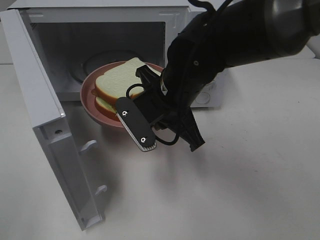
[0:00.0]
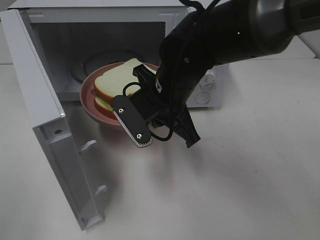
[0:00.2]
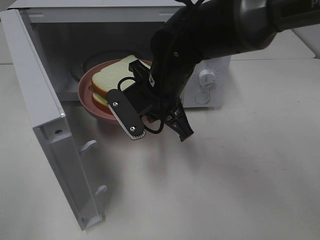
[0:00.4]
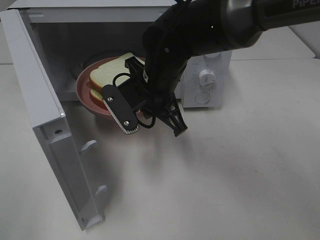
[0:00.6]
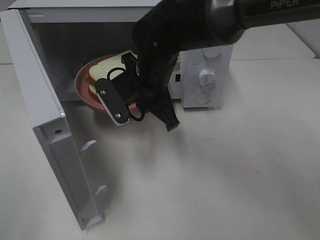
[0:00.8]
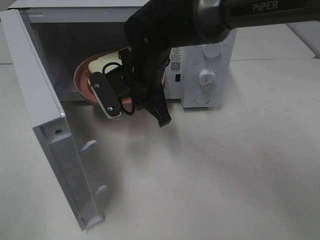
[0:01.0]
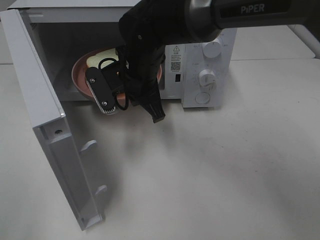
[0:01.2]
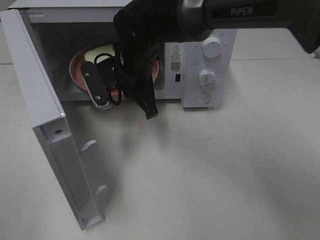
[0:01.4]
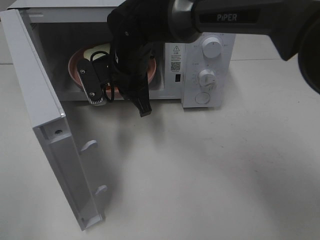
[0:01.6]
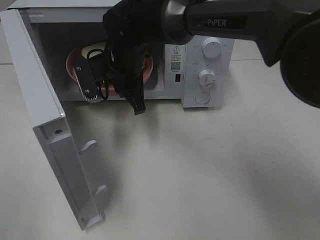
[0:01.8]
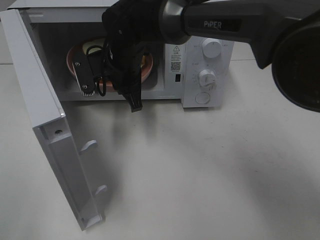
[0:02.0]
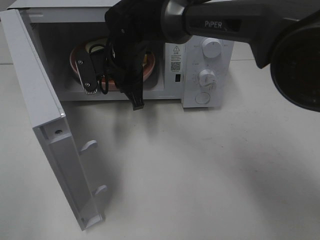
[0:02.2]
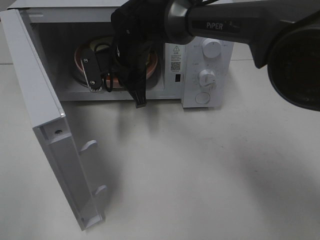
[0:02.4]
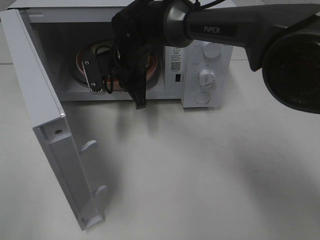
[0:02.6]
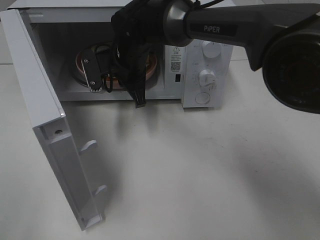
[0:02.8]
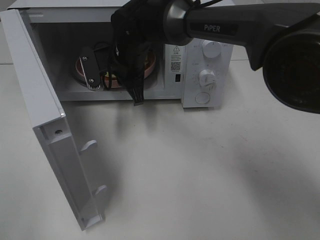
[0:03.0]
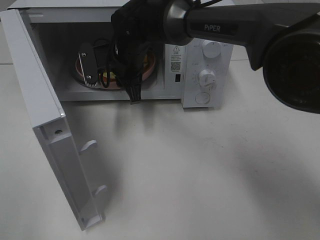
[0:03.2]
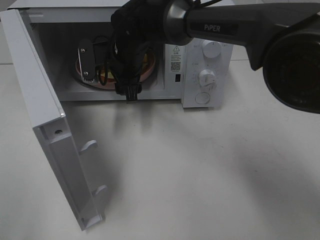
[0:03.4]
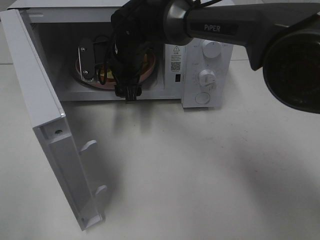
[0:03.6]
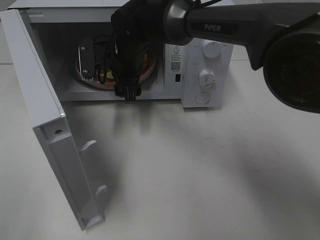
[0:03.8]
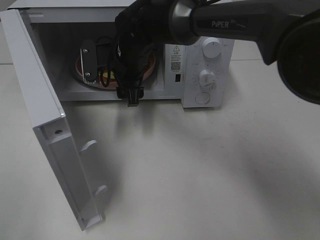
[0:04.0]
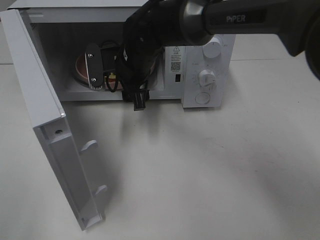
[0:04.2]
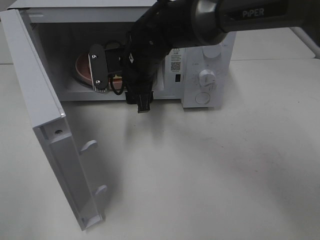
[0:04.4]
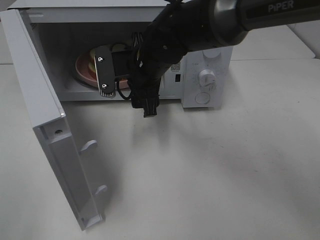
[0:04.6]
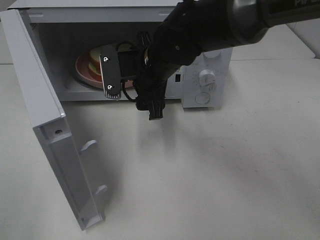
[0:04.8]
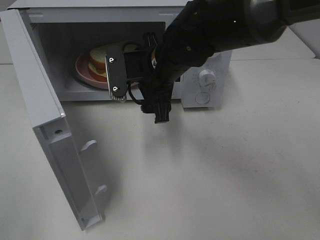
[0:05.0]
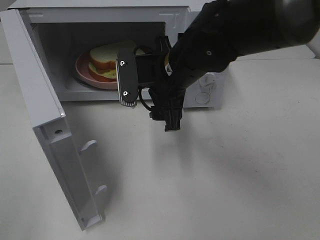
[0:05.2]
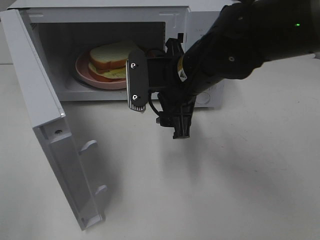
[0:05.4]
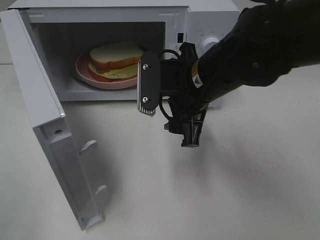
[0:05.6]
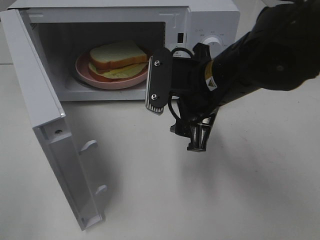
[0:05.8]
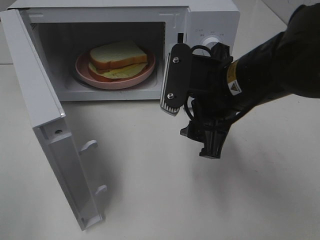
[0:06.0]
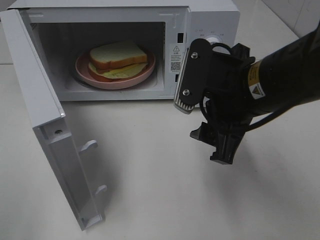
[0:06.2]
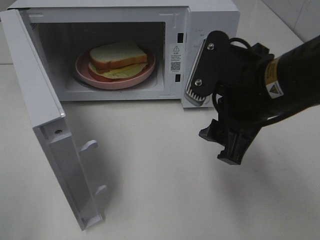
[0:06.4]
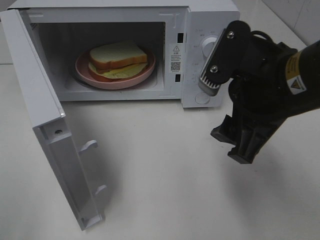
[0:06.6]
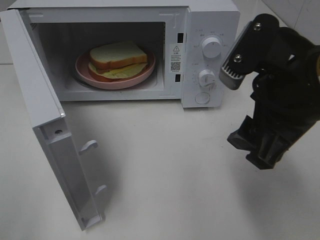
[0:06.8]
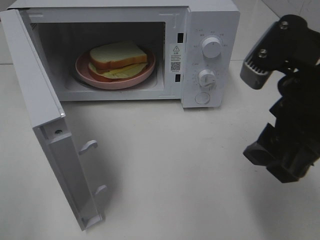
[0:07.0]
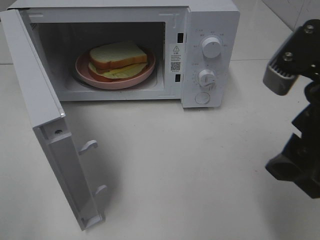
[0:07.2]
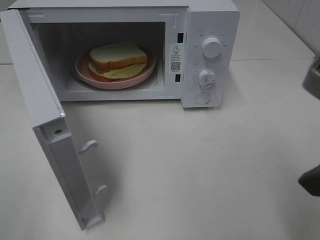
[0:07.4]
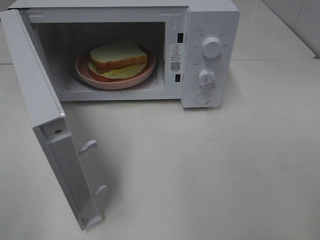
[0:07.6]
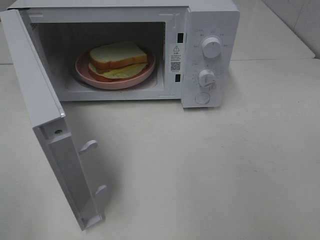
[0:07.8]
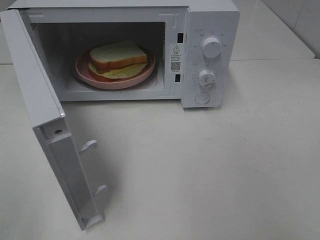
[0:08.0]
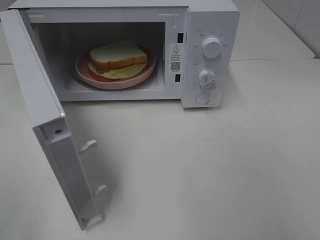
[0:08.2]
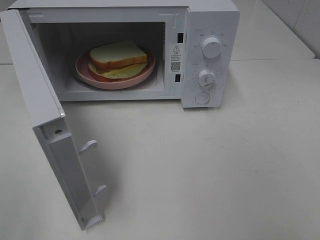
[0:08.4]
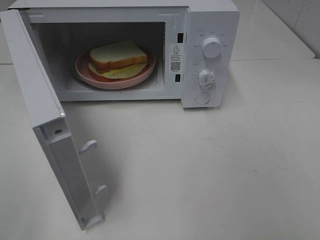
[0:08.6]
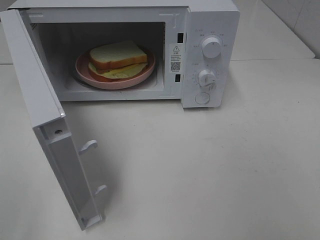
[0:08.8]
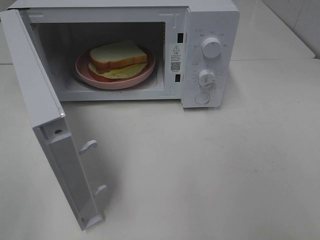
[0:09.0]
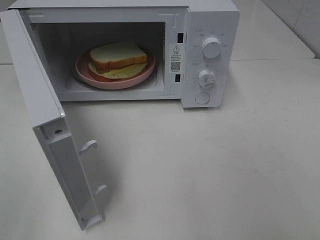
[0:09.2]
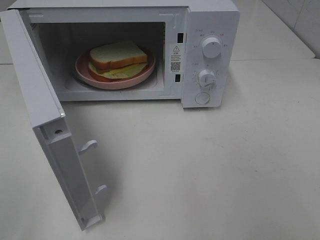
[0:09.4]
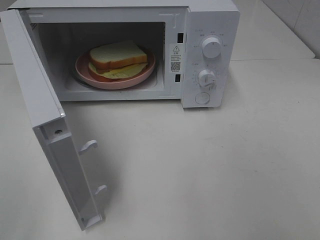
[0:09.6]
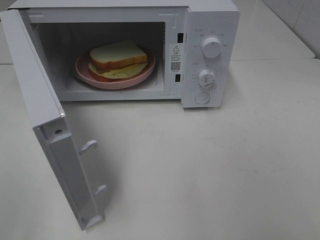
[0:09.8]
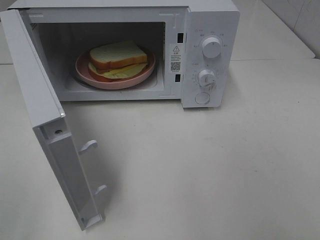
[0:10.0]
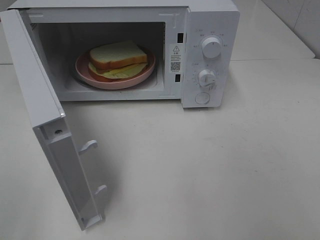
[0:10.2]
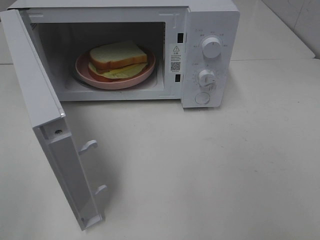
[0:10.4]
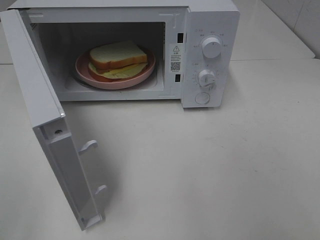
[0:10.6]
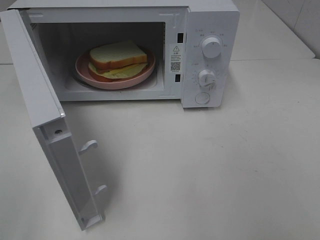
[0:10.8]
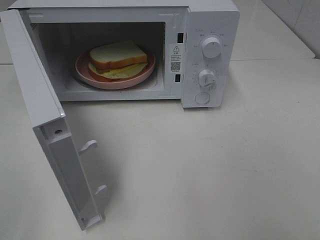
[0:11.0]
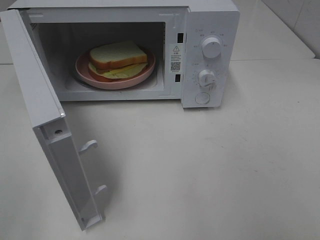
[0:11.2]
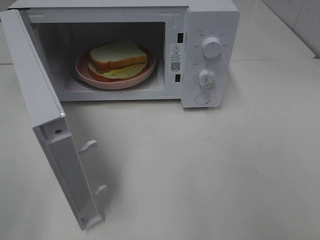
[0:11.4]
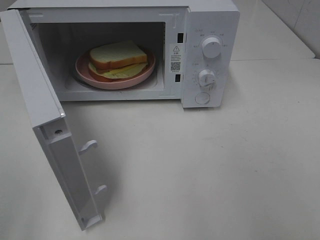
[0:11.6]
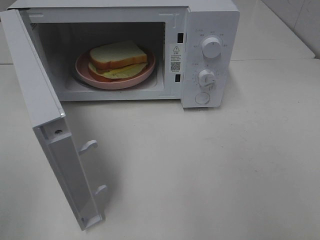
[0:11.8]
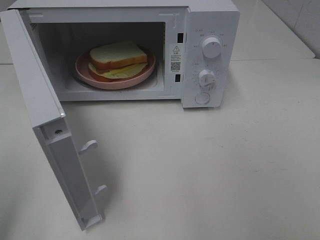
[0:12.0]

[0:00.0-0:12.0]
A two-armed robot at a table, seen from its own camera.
Task of the whole recording: Heat Sandwich.
Step, 0:00.0 to 0:03.8: Right hand: place the plate in the microwave.
0:00.0 to 0:01.6: The right gripper shifts about 10 cm forward and to the left.
0:01.6 to 0:03.0: The grippers make only small movements.
0:03.0 to 0:04.4: The right gripper opens up.
0:04.4 to 0:06.0: The right gripper travels backward and to the right by some 20 cm.
0:06.0 to 0:07.6: The right gripper is displaced backward, to the right and upward by roughly 20 cm.
0:09.0 to 0:10.4: Both grippers stay put.

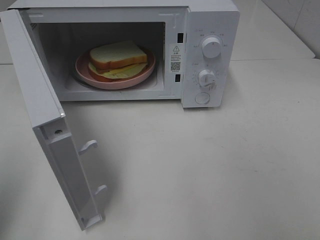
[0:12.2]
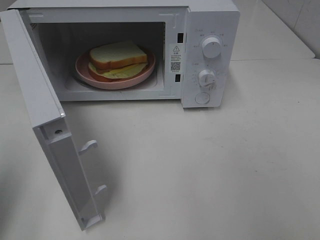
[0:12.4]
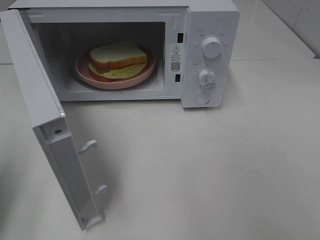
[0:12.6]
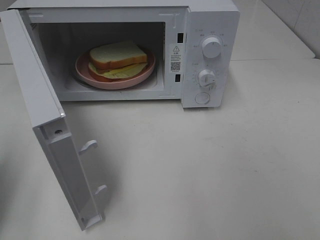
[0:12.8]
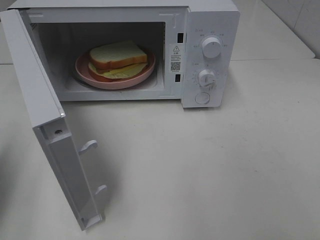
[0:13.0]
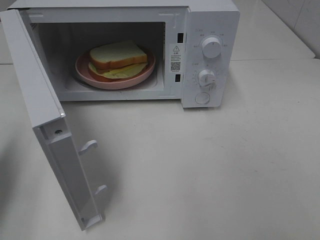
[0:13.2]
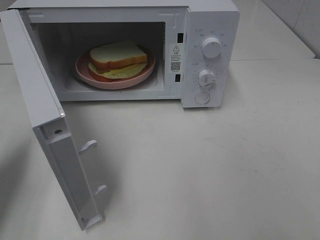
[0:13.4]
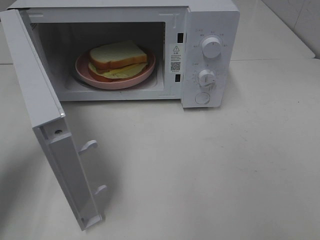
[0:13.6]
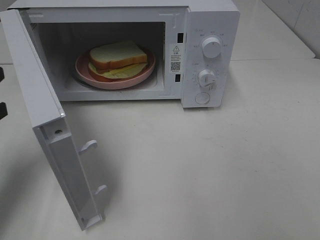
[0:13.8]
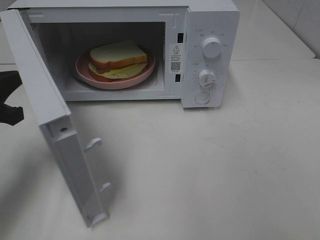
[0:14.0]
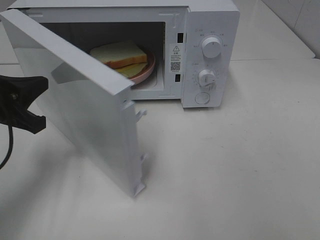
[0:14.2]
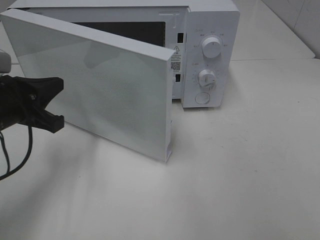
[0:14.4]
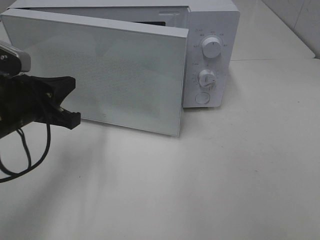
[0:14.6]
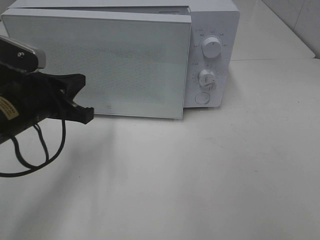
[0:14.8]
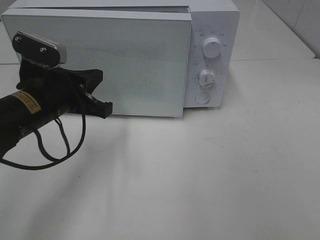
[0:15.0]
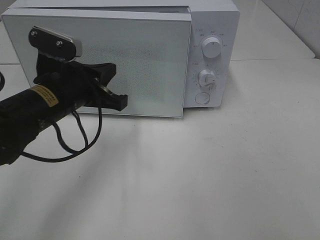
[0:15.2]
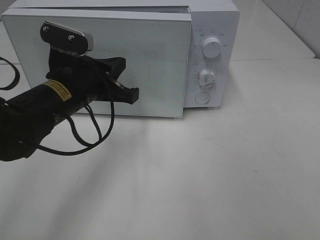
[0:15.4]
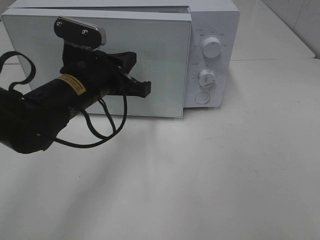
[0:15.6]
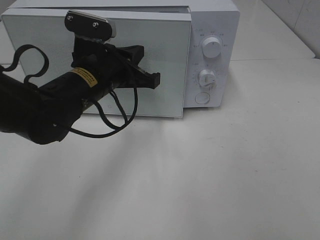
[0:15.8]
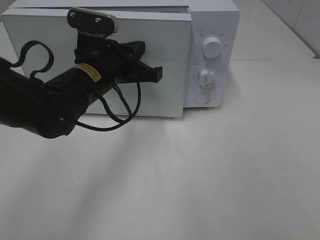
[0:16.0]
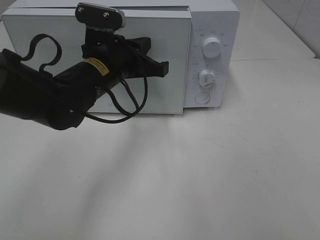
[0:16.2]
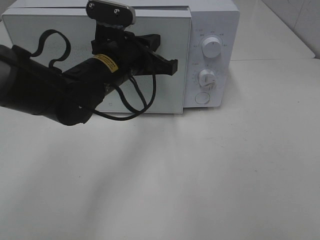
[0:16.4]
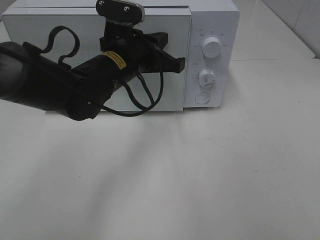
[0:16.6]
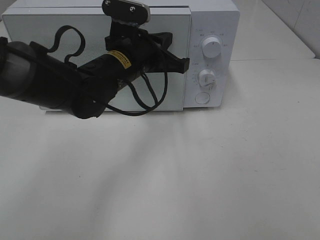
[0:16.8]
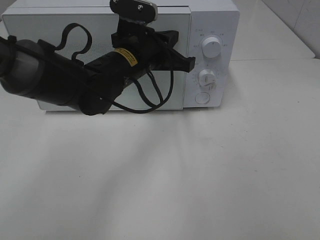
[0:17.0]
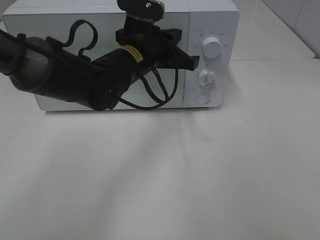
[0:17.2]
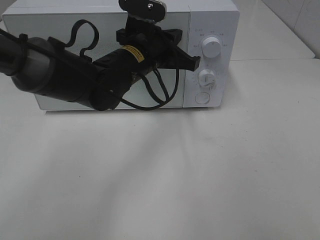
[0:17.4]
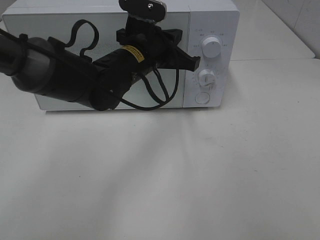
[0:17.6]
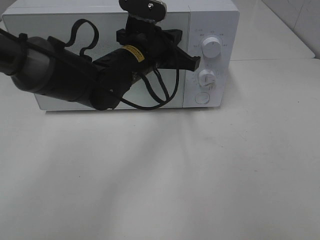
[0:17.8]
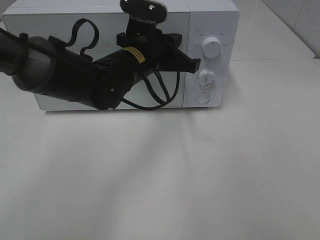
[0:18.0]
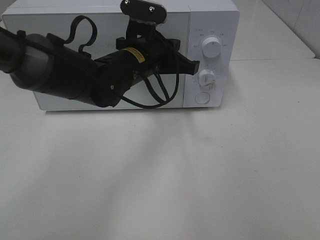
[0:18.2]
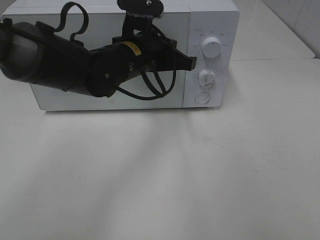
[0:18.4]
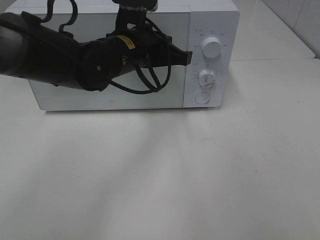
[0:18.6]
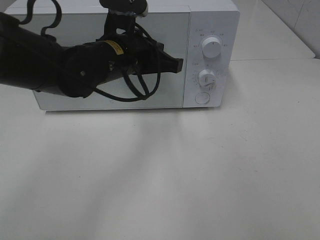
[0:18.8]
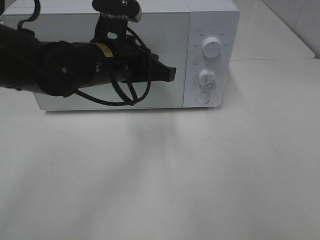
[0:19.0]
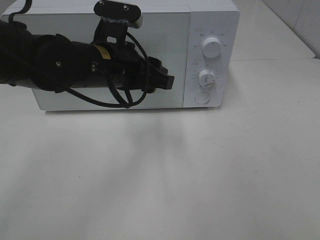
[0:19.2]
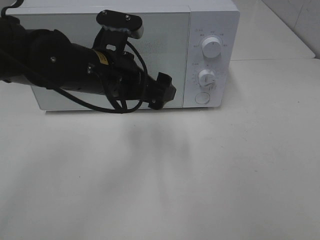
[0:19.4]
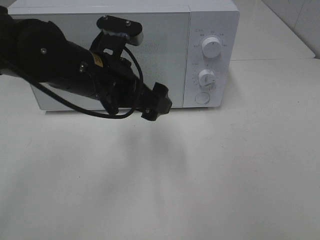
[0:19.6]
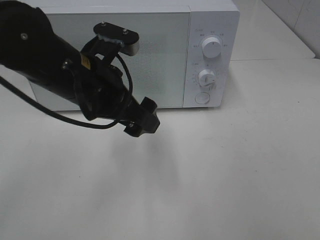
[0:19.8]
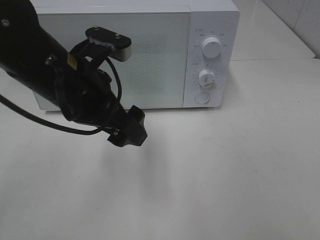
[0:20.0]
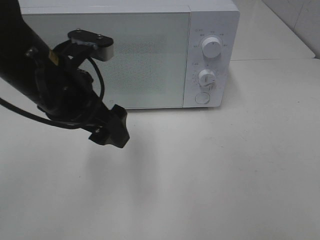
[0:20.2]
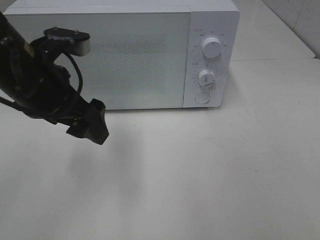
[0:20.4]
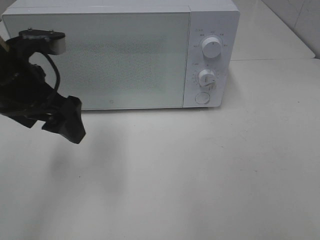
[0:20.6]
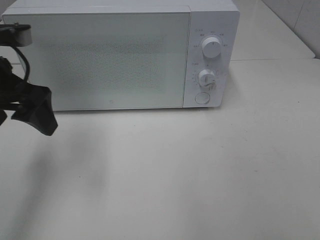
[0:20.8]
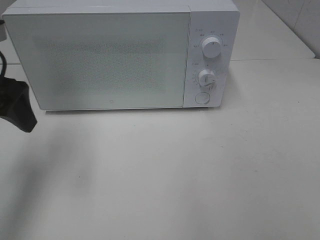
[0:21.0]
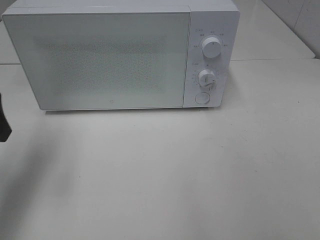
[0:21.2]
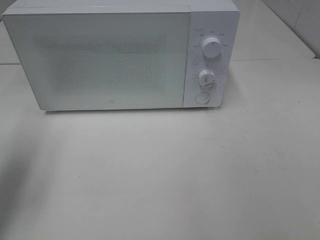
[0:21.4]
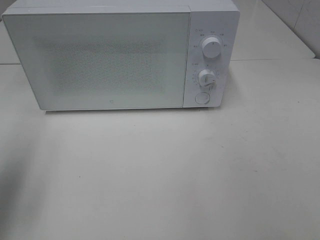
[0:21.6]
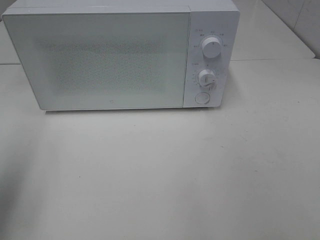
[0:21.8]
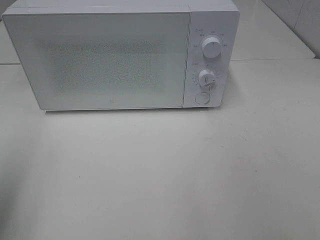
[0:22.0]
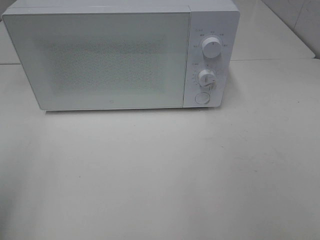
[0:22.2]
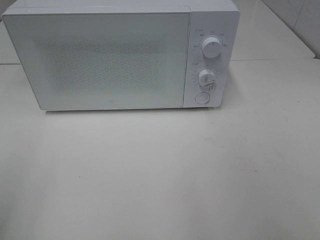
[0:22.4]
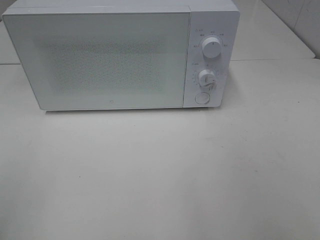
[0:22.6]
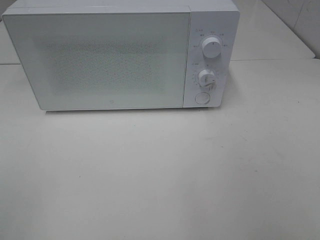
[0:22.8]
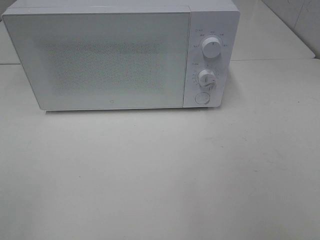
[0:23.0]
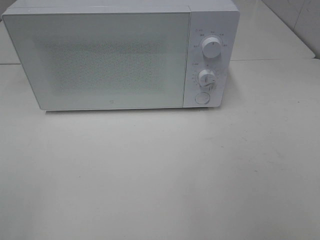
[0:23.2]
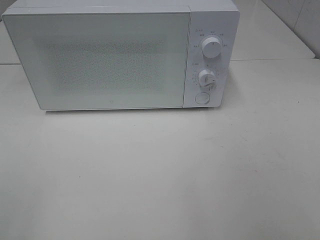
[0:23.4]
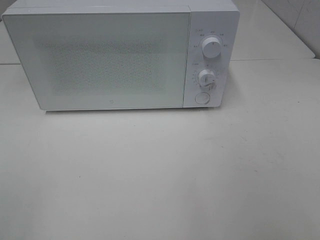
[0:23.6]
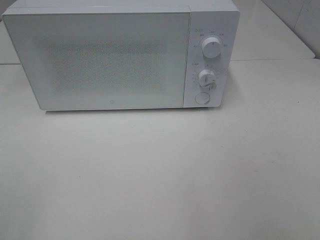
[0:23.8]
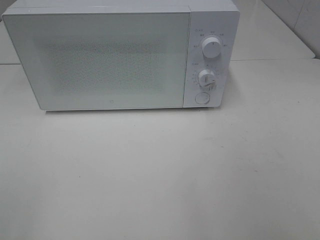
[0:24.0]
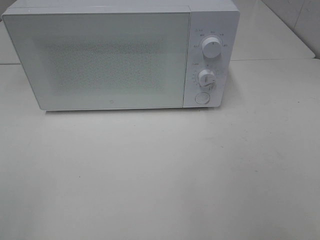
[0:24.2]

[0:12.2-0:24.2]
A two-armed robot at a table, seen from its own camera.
Task of the whole recording: Heat Sandwich.
Step, 0:12.2 to 0:19.2: Left hand: close the microwave door.
0:12.2 to 0:13.8: The left gripper moves forward and downward, some 15 cm.
0:13.8 to 0:15.2: The left gripper goes about 15 cm to the right.
0:15.2 to 0:16.6: The left gripper moves to the right and forward, approximately 10 cm.
0:16.6 to 0:18.2: There are only small adjustments of the grippers.
0:18.2 to 0:19.8: The left gripper travels backward and to the left by some 10 cm, and opens its fingers.
0:19.8 to 0:21.2: The left gripper heads to the left, covering about 20 cm.
0:21.2 to 0:22.6: The left gripper is displaced backward by approximately 20 cm.
